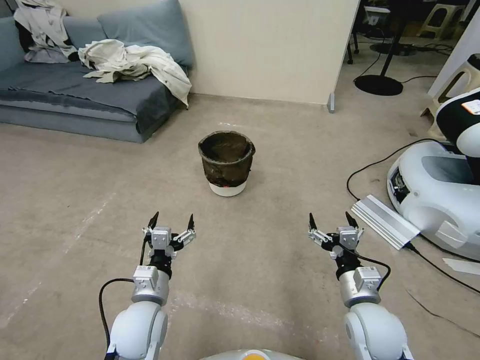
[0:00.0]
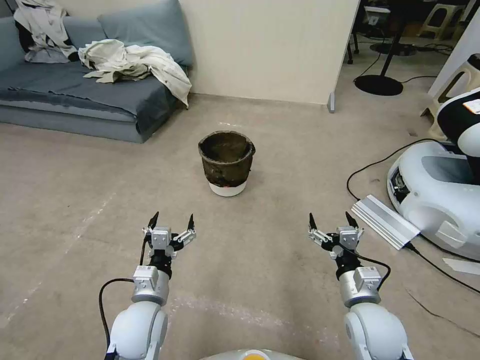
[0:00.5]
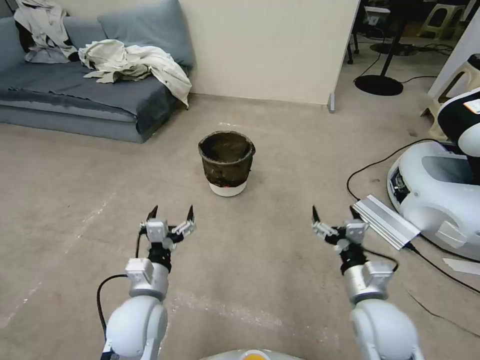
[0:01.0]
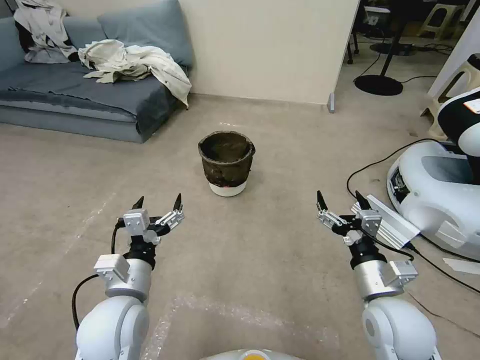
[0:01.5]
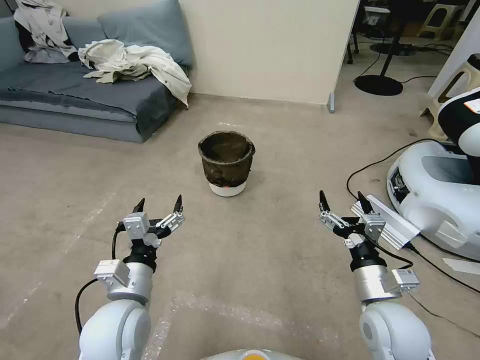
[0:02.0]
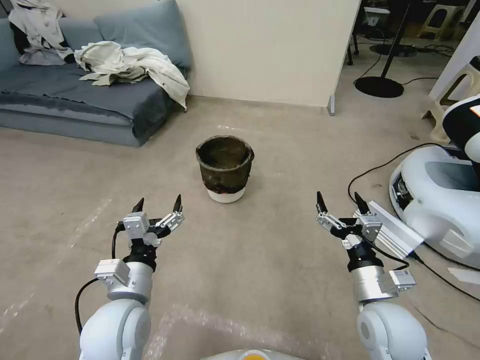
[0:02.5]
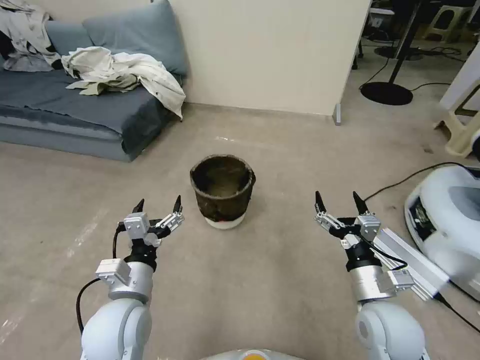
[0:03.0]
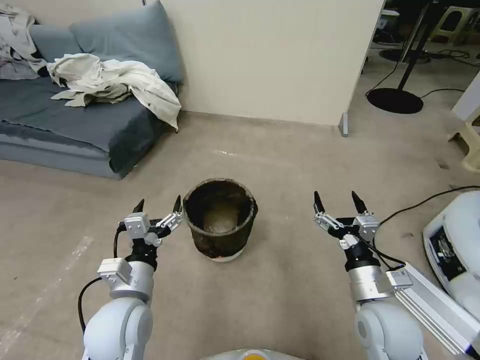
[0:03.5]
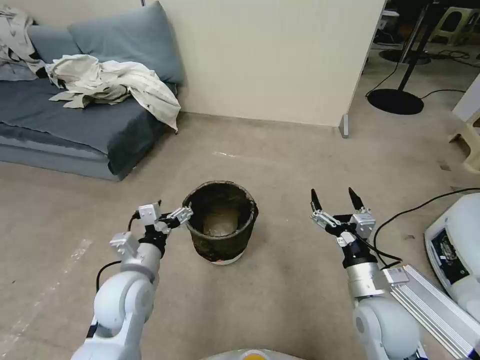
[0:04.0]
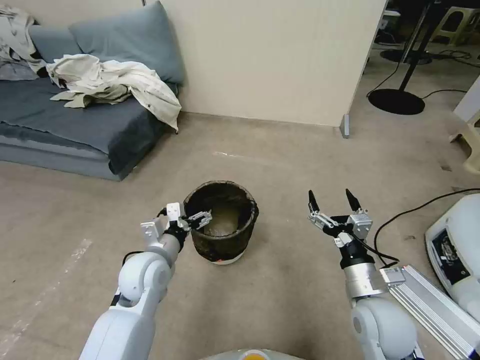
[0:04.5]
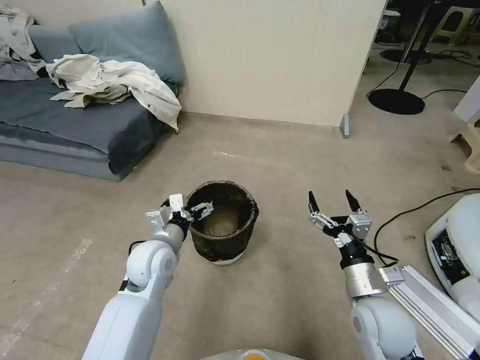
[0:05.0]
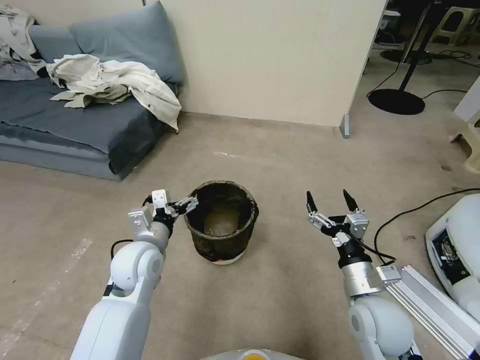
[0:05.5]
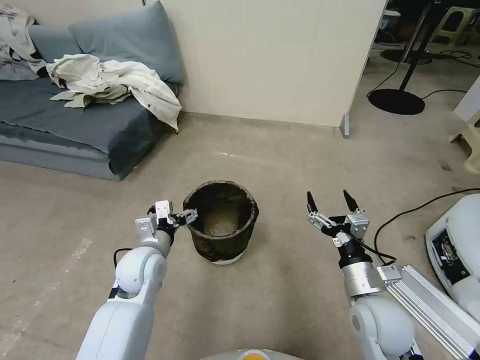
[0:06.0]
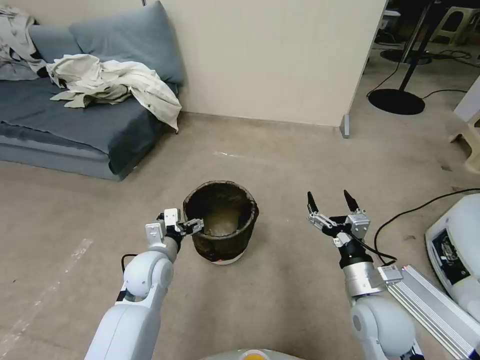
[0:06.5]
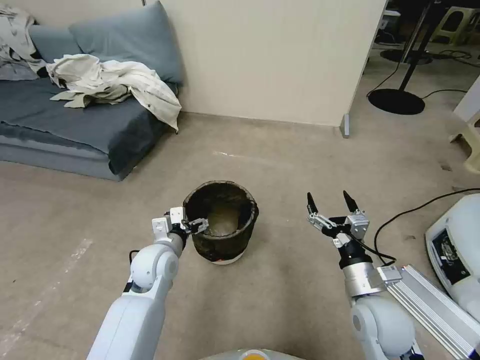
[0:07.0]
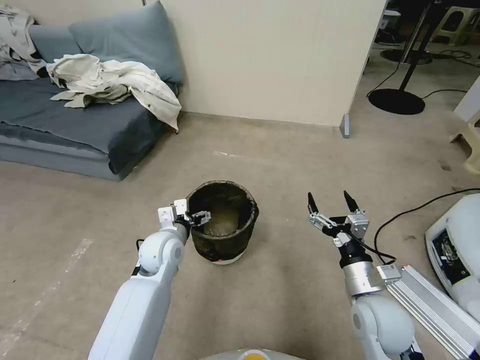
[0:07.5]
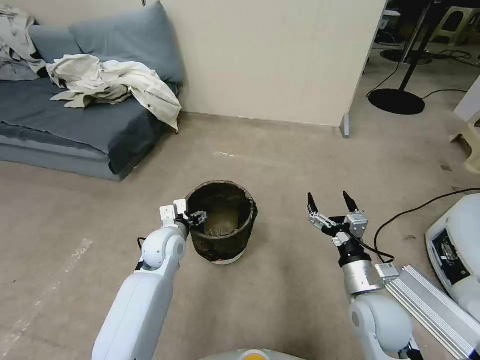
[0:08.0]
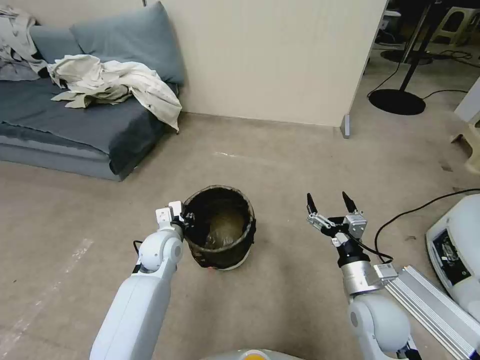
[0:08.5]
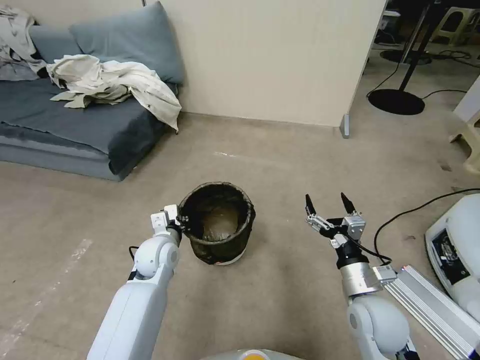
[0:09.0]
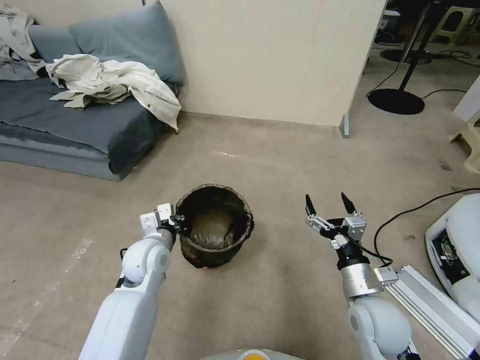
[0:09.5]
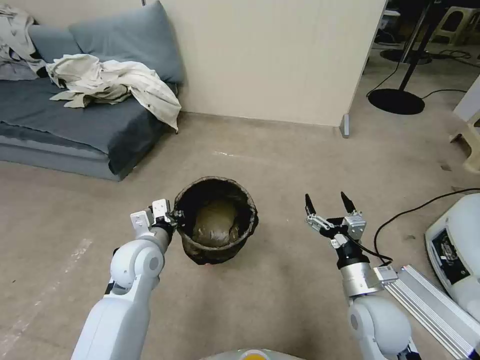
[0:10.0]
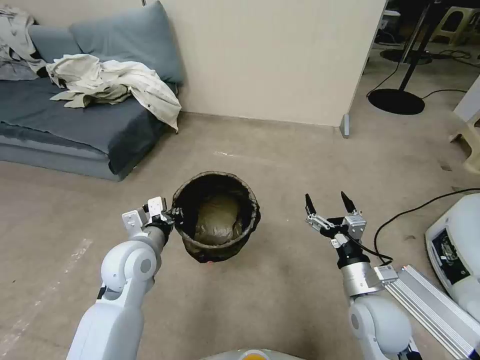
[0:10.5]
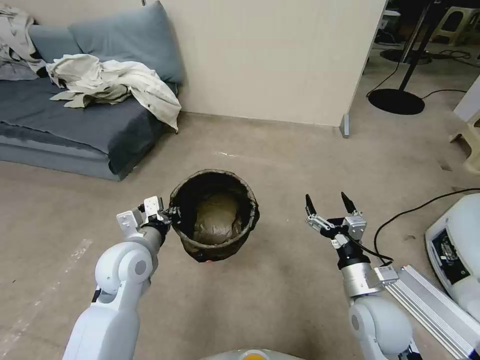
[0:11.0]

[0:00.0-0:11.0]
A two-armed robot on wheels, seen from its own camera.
Task of the whole recording: Pick up the trash can from the floor.
0:03.5 to 0:05.5: The left gripper shifts some 10 cm forward.
0:05.5 to 0:07.5: The left gripper changes place by approximately 5 cm.
0:07.5 to 0:09.0: The left gripper closes its fingers.
0:09.0 to 0:11.0: The left gripper is displaced upward and backward by about 10 cm.
